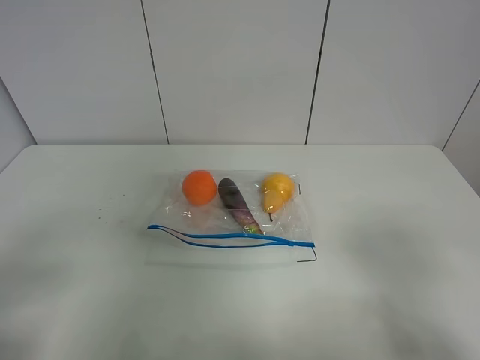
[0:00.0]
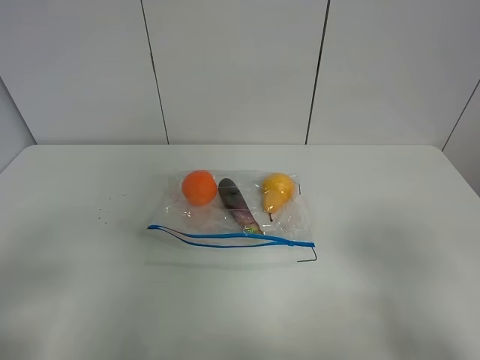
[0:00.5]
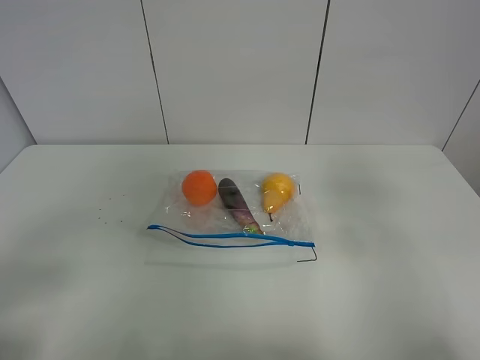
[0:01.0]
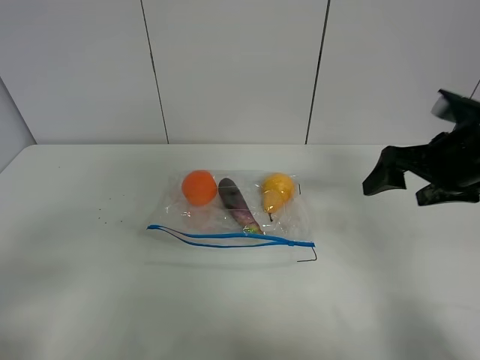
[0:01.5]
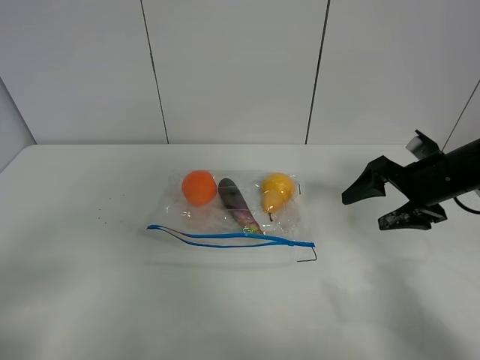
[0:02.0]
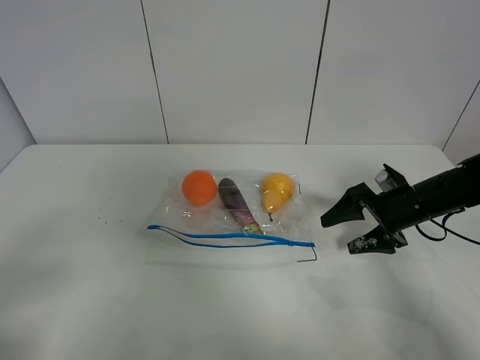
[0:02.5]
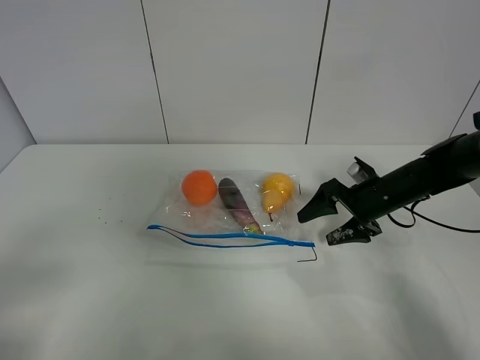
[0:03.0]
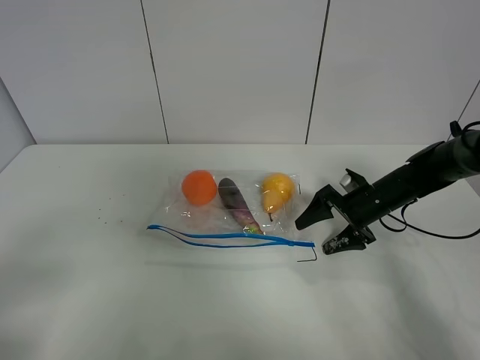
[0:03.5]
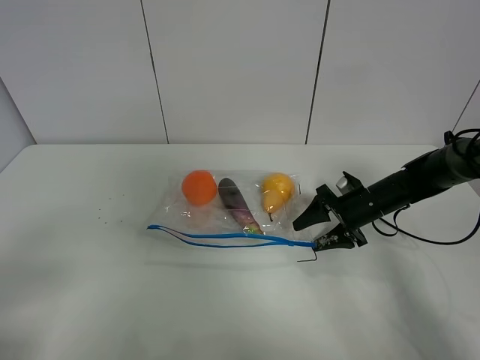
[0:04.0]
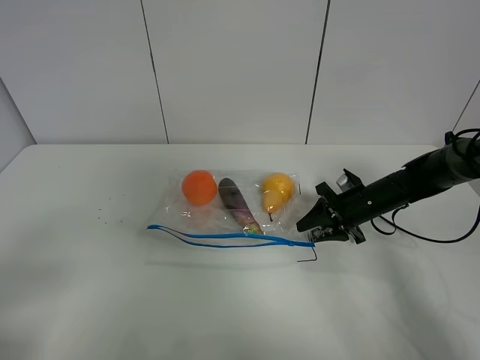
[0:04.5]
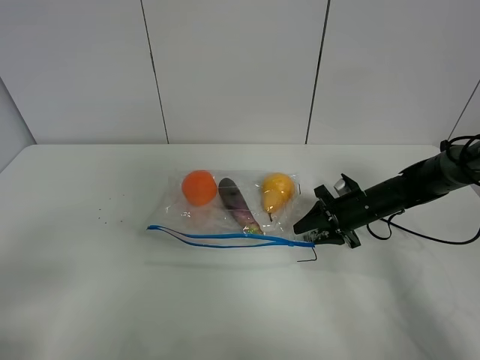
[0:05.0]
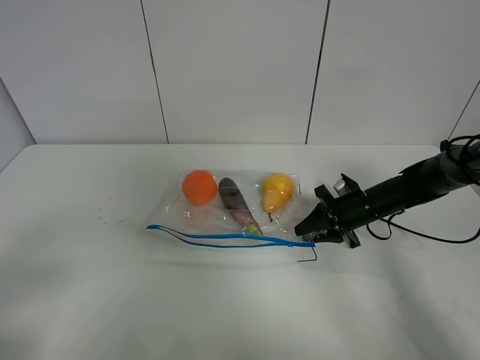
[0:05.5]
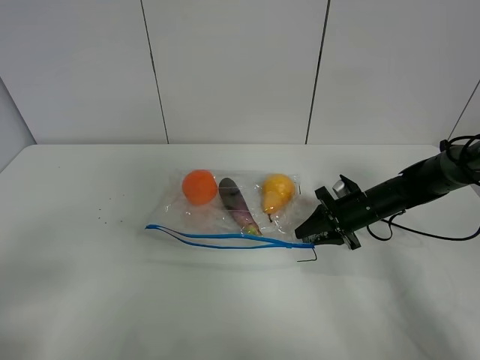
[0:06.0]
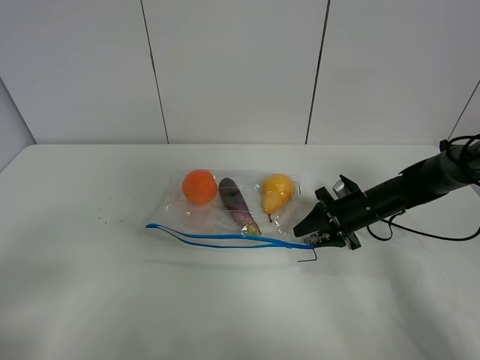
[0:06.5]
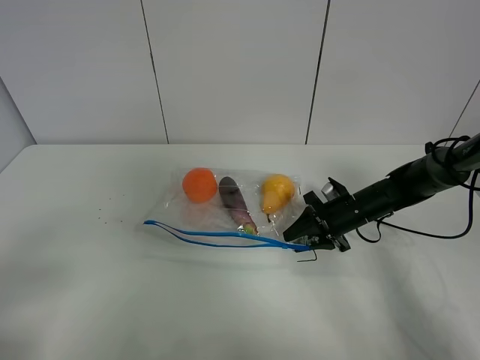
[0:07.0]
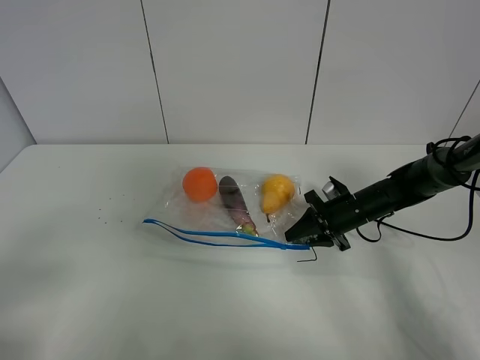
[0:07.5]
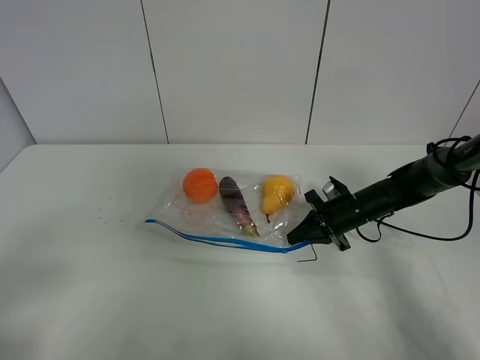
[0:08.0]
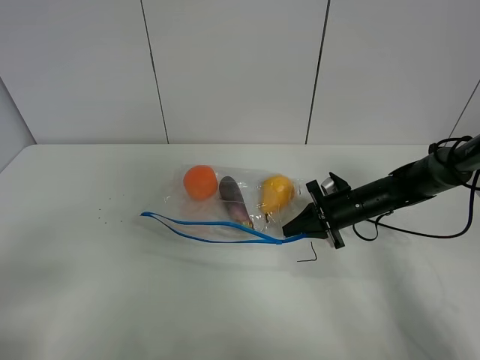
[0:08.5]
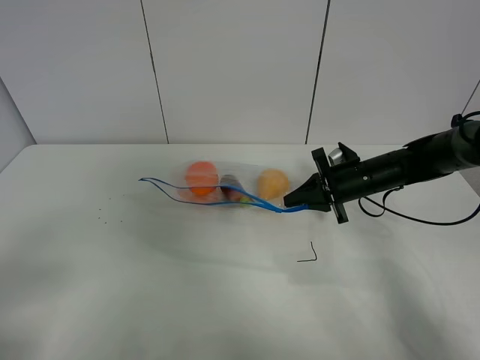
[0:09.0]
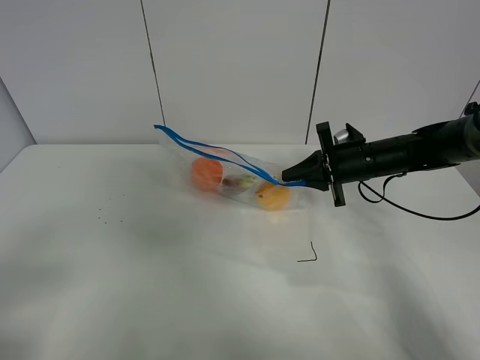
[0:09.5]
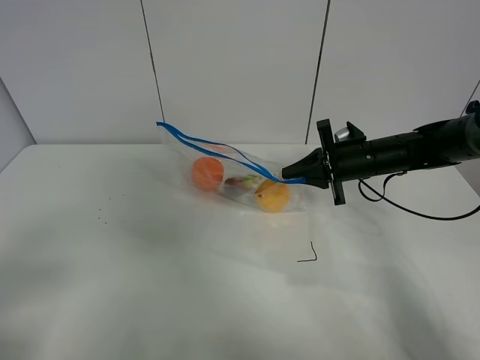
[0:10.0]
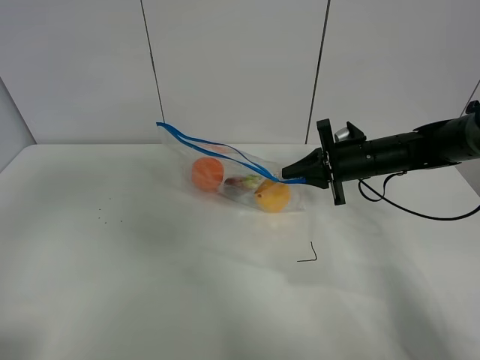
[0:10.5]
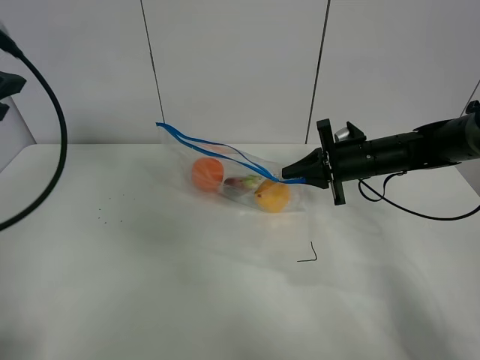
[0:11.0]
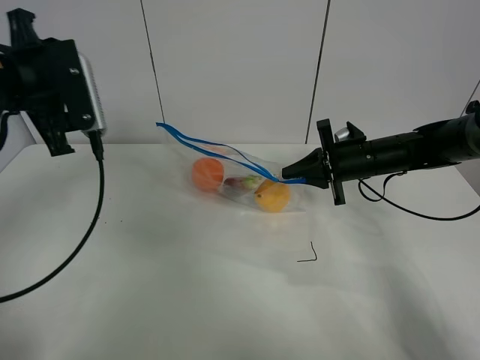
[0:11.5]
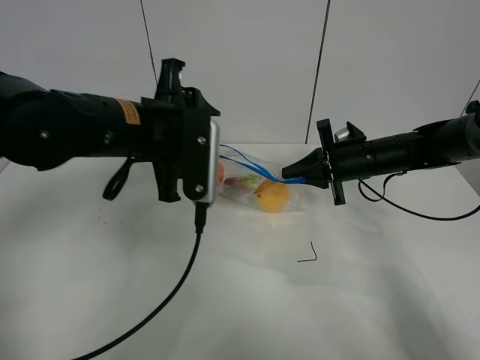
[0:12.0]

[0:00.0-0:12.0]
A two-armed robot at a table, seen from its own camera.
Step, 0:00.0 to 0:08.0: Grasp the fruit bag with right gripper.
Step, 0:08.5 to 0:09.5: Lift the fruit bag with your right gripper.
0:00.0 to 0:02.0: The right gripper heads forward, covering some 30 cm.
0:02.0 to 0:04.0: The right gripper goes some 10 cm downward and forward.
0:04.0 to 0:06.0: The right gripper closes.
0:06.0 to 0:08.0: There are only small adjustments of the grippers.
0:08.0 to 0:10.0: The right gripper goes about 10 cm upward.
0:10.0 to 0:12.0: The left gripper shifts some 35 cm forward and to the right.

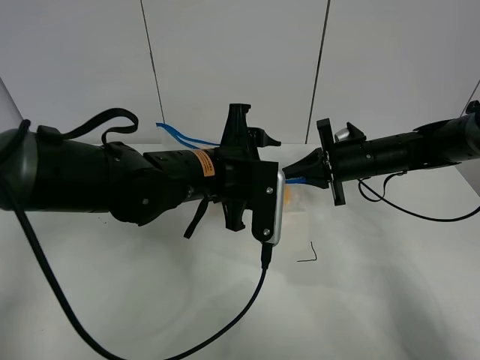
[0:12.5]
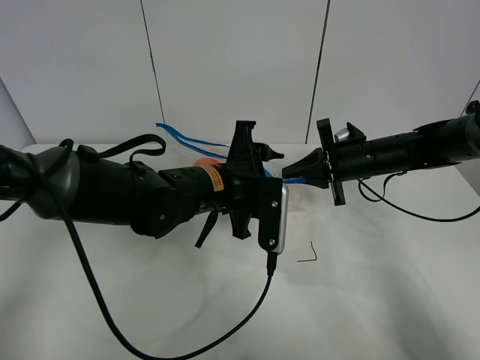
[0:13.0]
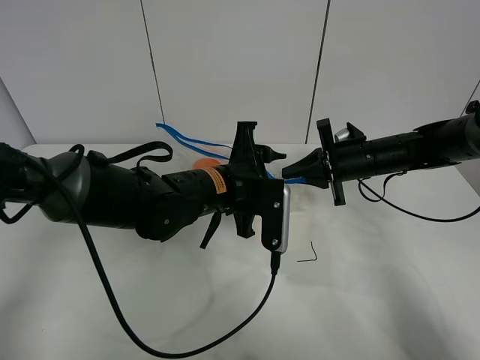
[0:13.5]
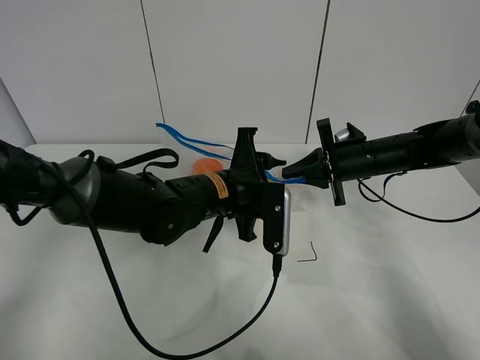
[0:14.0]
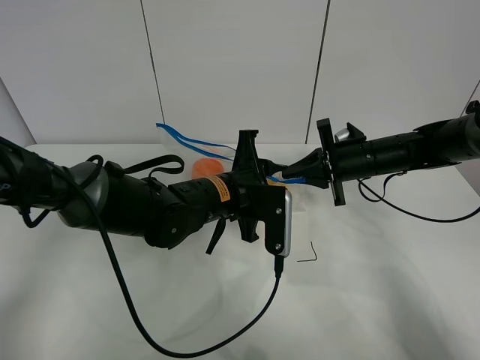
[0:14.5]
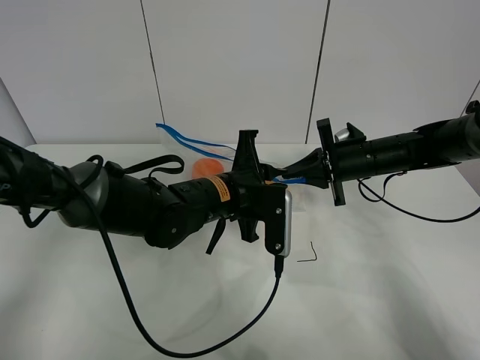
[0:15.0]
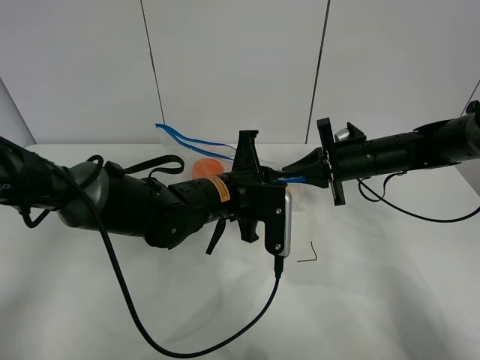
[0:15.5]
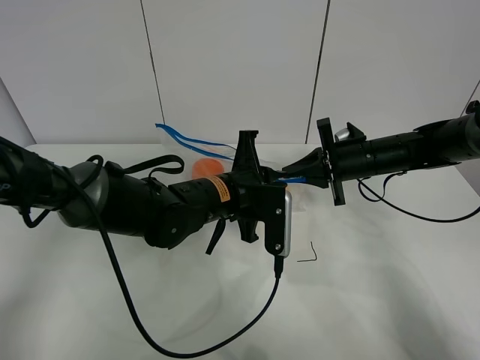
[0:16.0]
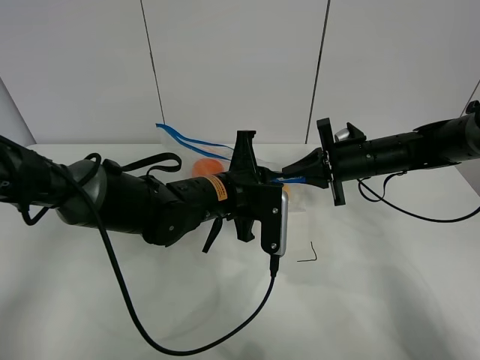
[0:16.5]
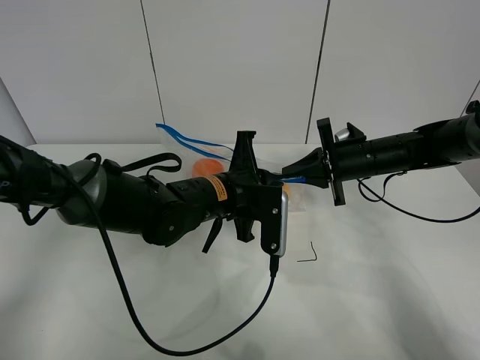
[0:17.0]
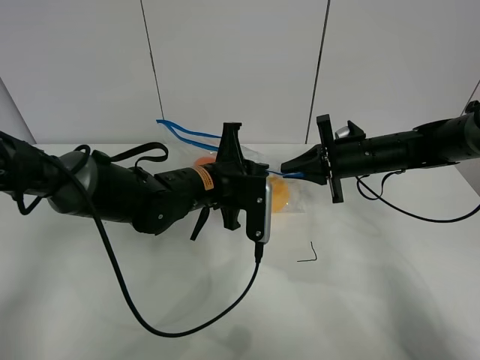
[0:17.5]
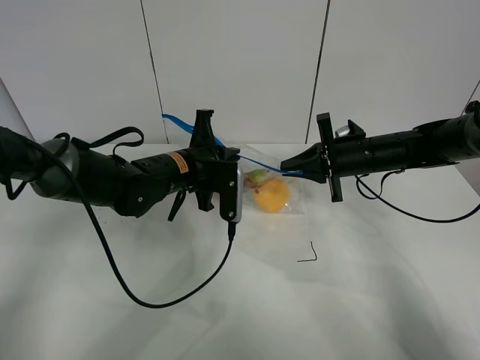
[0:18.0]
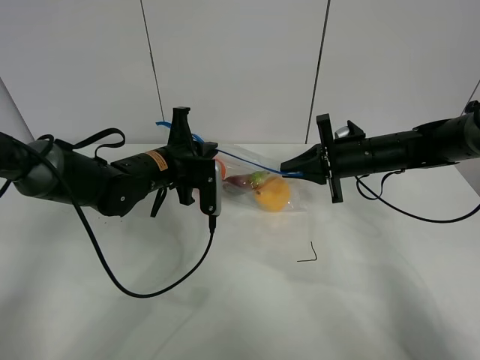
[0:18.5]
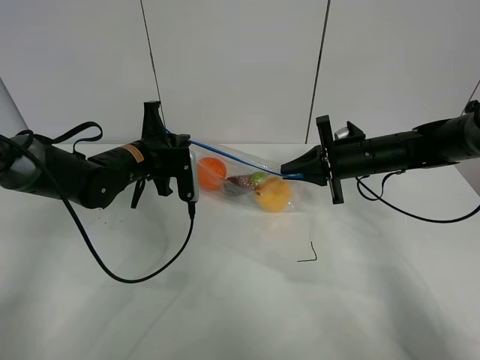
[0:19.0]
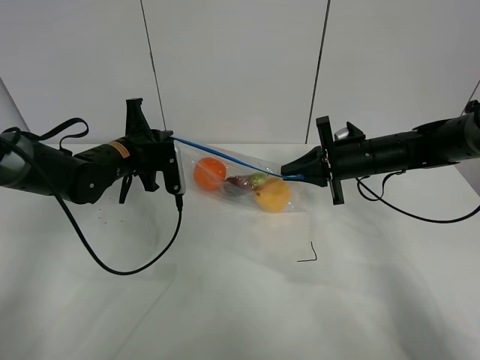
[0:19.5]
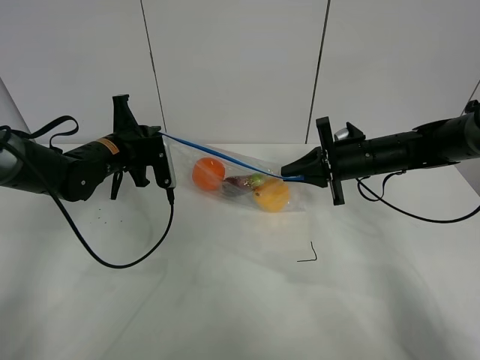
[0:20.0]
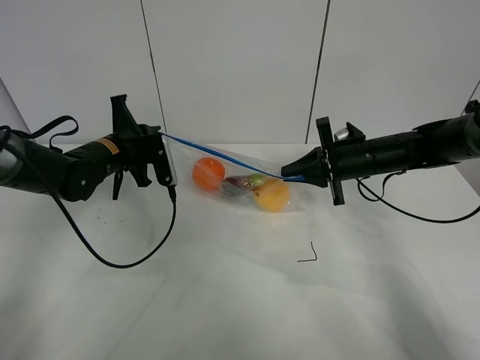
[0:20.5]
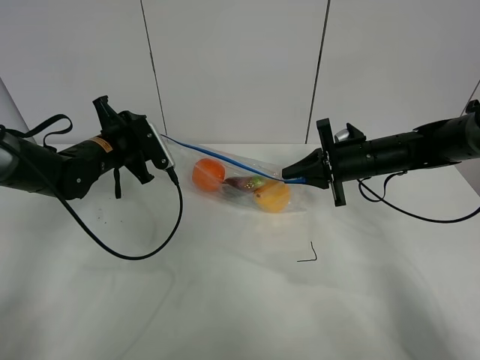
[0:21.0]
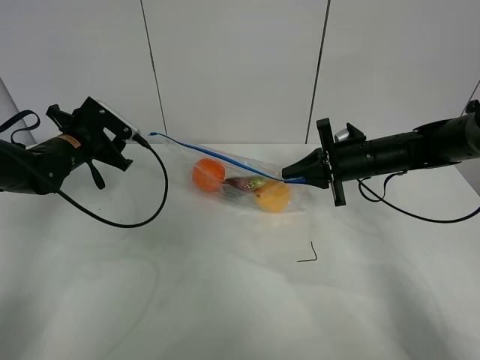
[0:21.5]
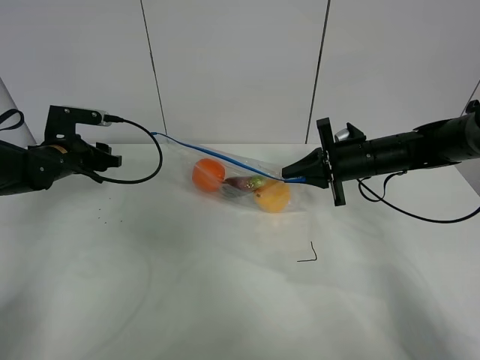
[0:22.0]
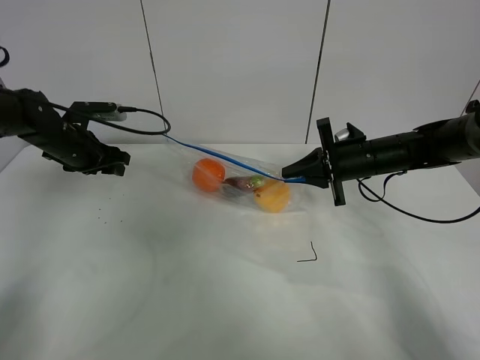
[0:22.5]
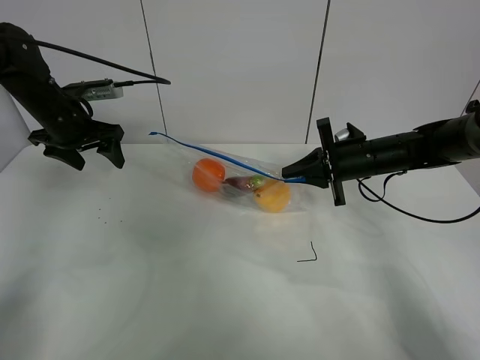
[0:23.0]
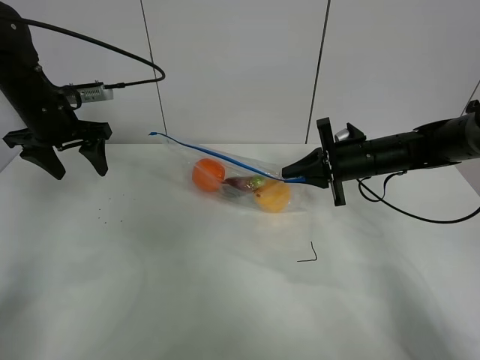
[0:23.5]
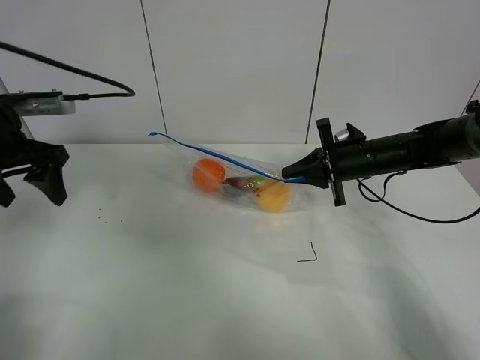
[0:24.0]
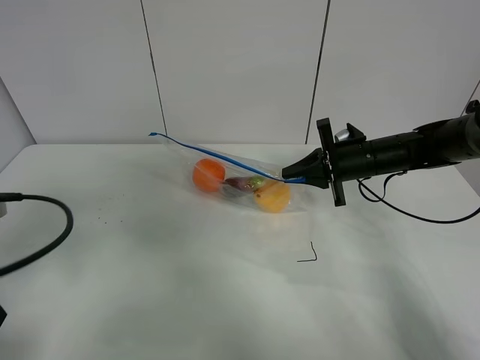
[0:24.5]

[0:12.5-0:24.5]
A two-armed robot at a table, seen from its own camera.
Step, 0:12.5 to 0:21.0: Pull the fruit bag with left gripper.
0:12.5 to 0:14.5: The left gripper shifts by approximately 5 cm.
0:14.5 to 0:16.5: The two grippers keep their place.
0:16.5 to 0:18.5: The left gripper moves to the left and forward, some 10 cm.
0:18.5 to 0:20.5: The left gripper goes roughly 10 cm to the left.
0:20.5 to 0:22.5: The left gripper travels to the left by about 10 cm, and opens its fingers.
0:22.5 to 0:24.5: The left gripper shifts roughly 30 cm backward.

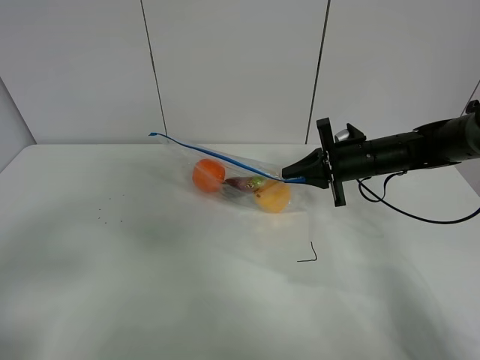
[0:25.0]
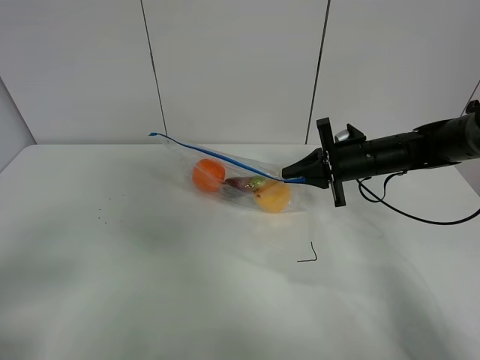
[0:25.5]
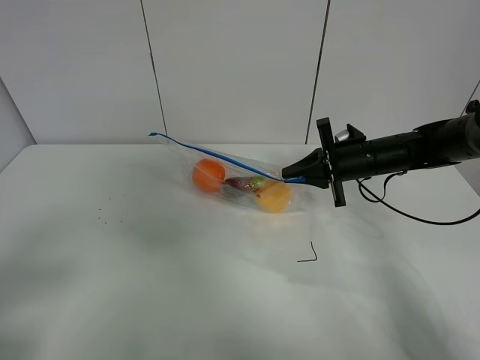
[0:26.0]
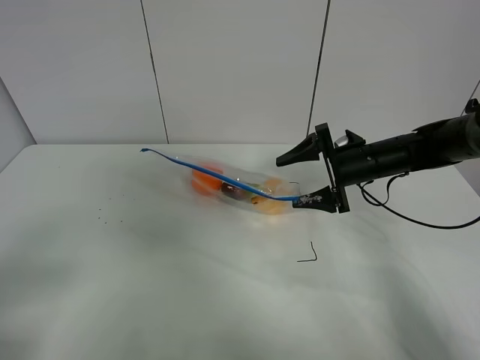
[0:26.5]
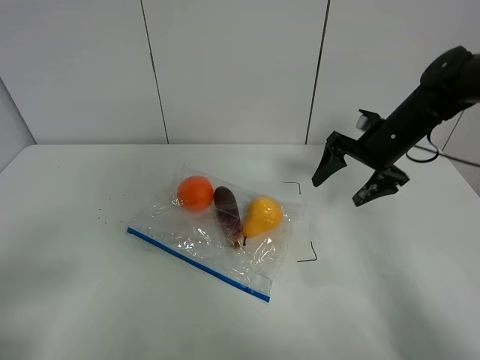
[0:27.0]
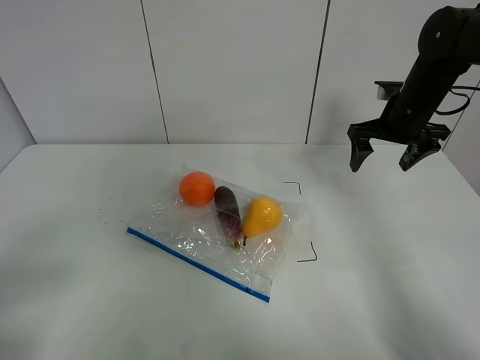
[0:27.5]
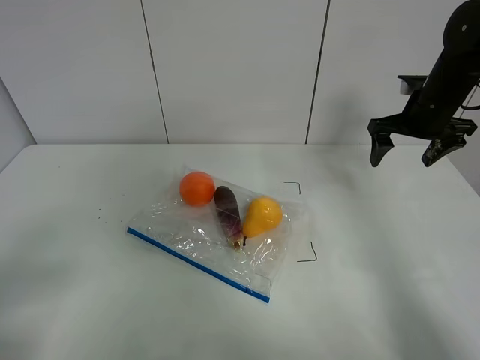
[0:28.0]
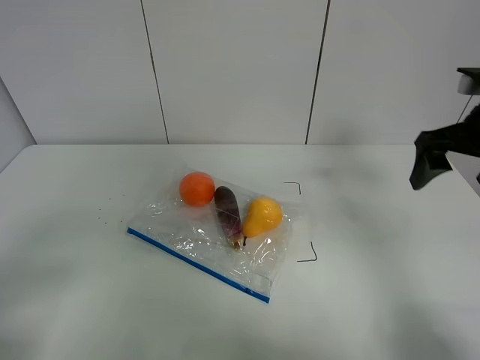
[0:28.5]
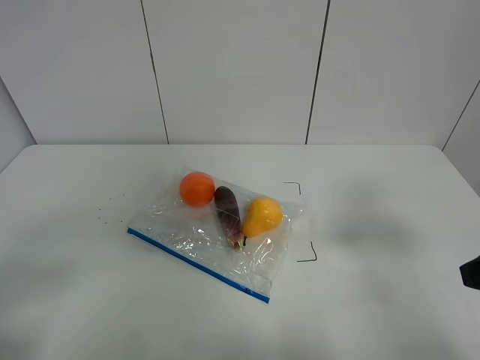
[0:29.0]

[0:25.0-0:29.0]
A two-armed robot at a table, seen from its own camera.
Step, 0:25.0 to 0:27.0: Place the fruit bag with right gripper.
0:25.0 to 0:27.0: The right gripper ends up about 5 cm from where it was, and opens up. Meanwhile the left gripper heads backward, covering approximately 5 cm.
0:27.0 to 0:29.0: The right gripper heads backward, covering approximately 30 cm.
